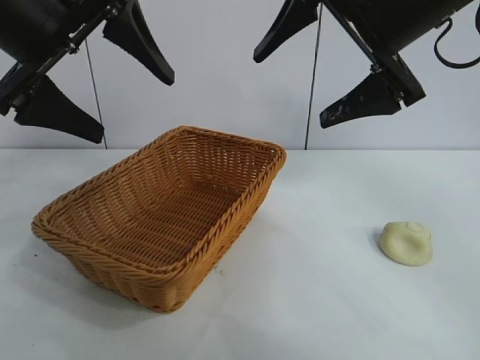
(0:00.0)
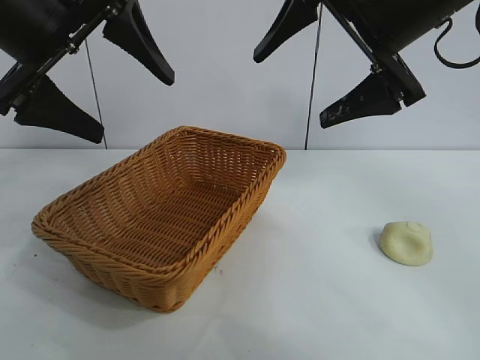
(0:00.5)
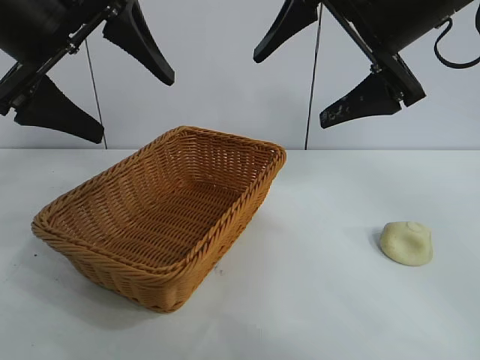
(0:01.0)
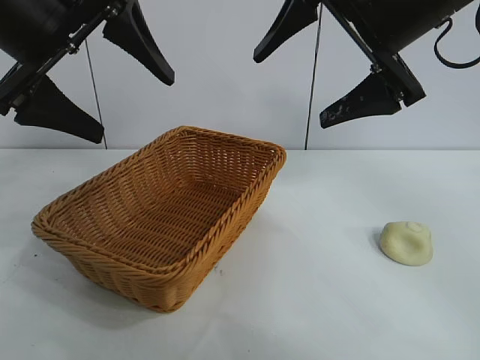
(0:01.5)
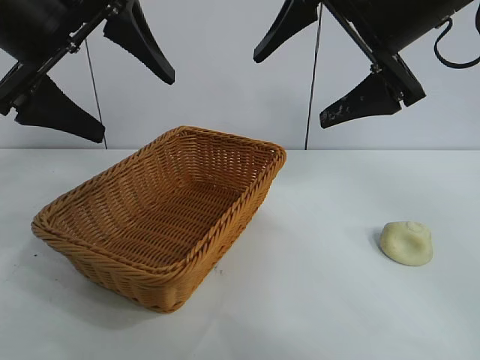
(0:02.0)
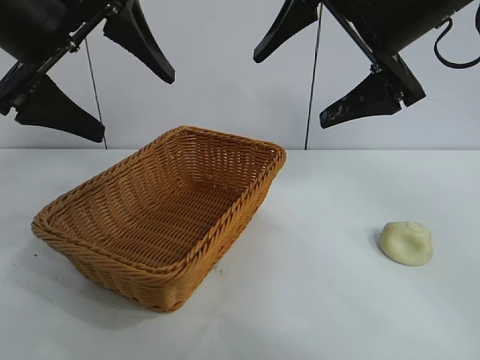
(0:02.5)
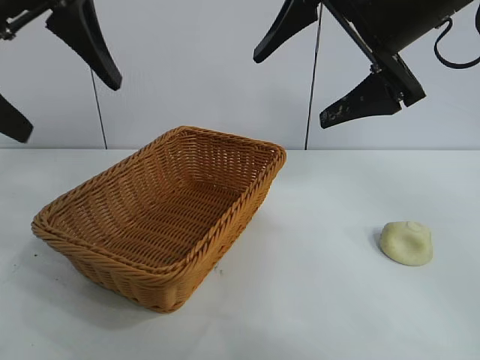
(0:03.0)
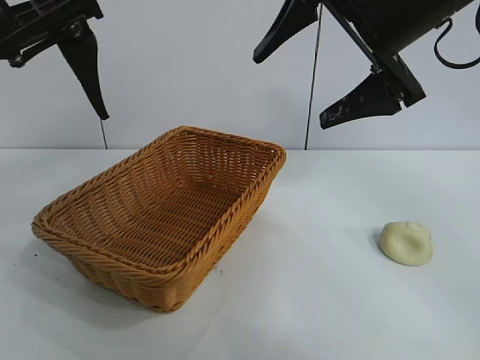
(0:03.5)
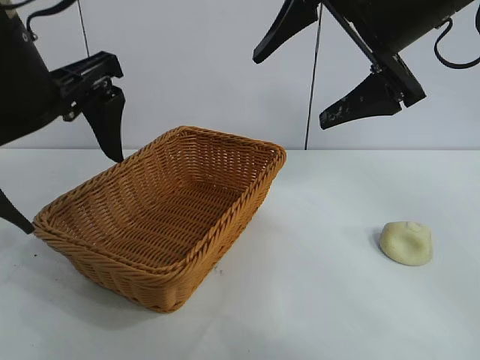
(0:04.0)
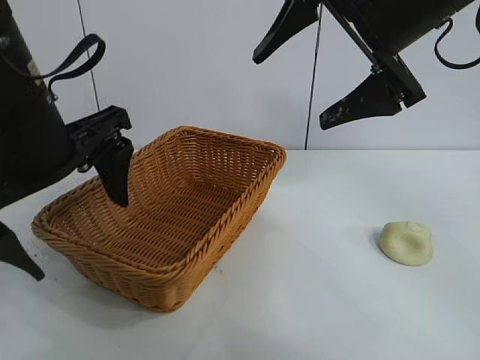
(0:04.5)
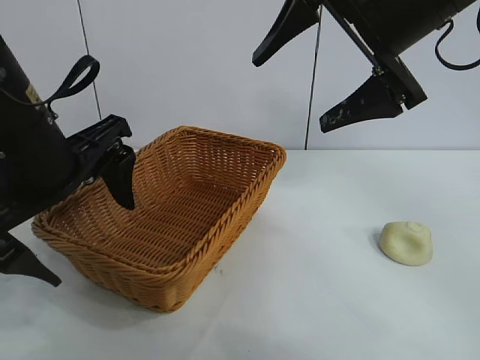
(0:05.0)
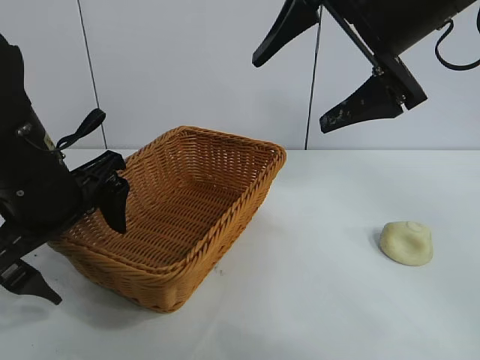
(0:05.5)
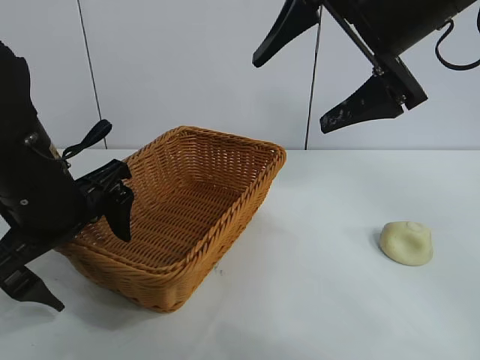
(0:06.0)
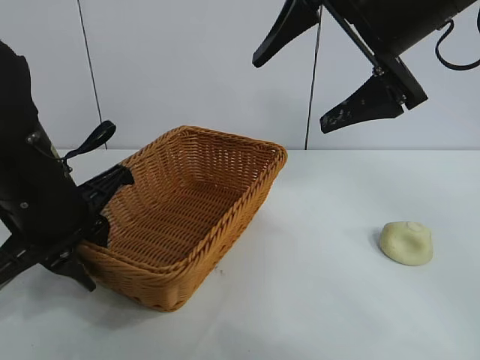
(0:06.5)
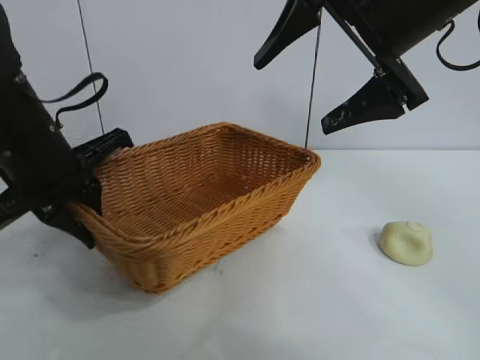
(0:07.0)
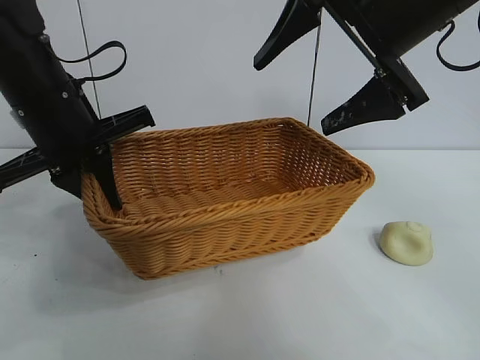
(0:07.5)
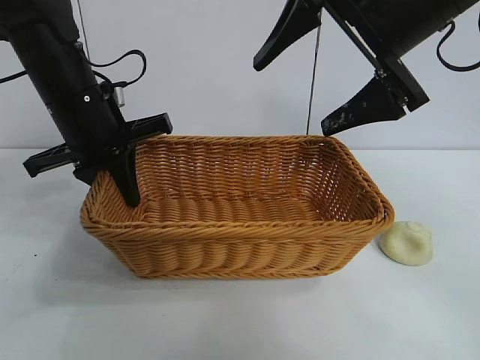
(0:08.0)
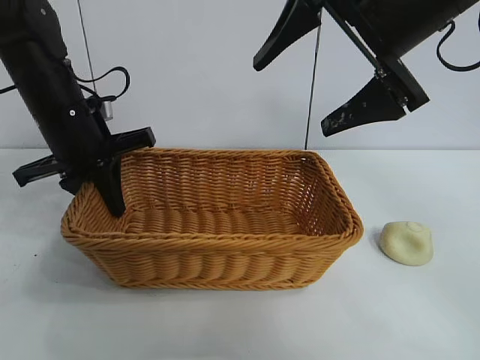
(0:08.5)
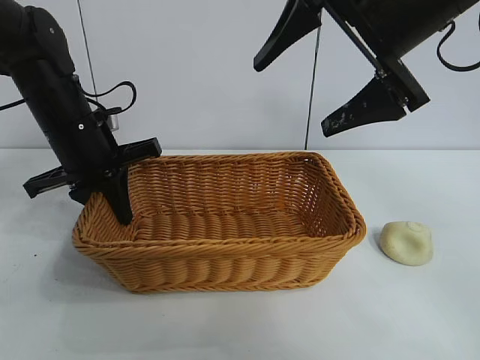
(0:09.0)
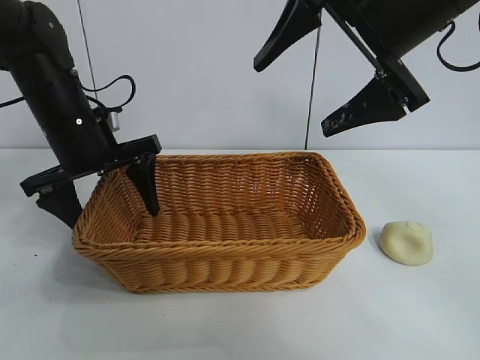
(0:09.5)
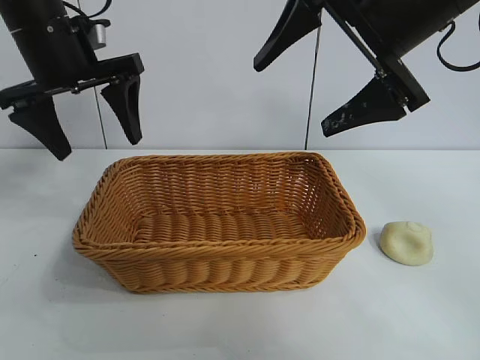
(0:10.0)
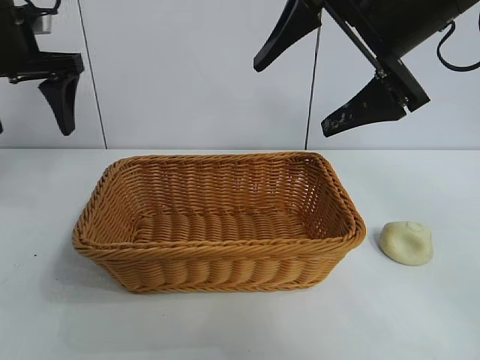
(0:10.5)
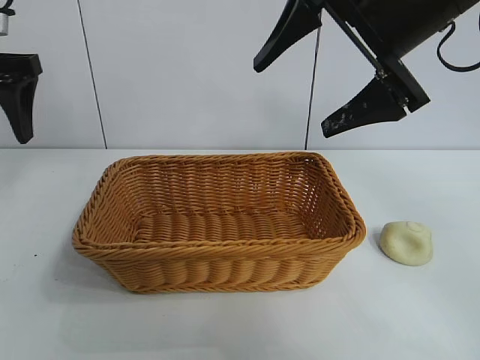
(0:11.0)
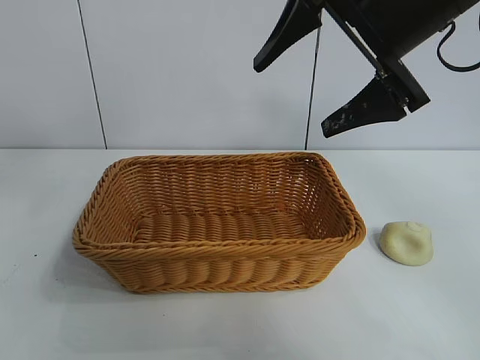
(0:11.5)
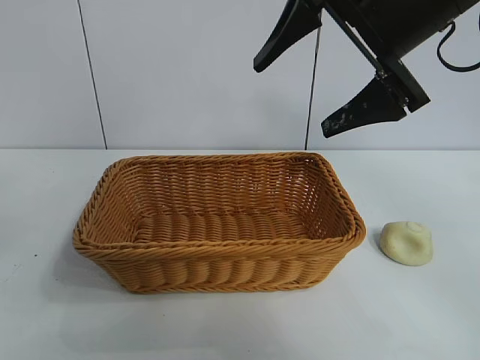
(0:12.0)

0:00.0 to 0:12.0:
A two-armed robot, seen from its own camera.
Task of the whole recording: pick up the egg yolk pastry and put it into the basket.
Step, 0:01.5 to 0:06.5: Grasp the basket with left gripper.
Step, 0:07.0 to 0:09.0: Place the basket in the center of view with left gripper.

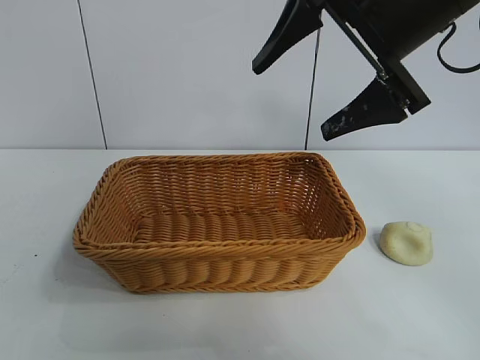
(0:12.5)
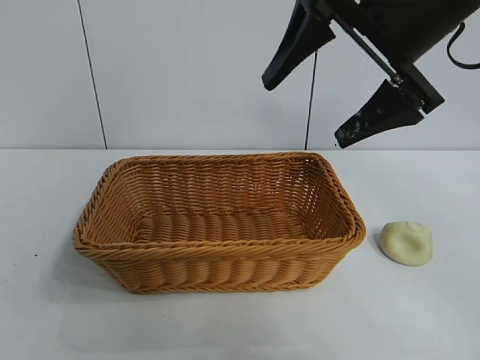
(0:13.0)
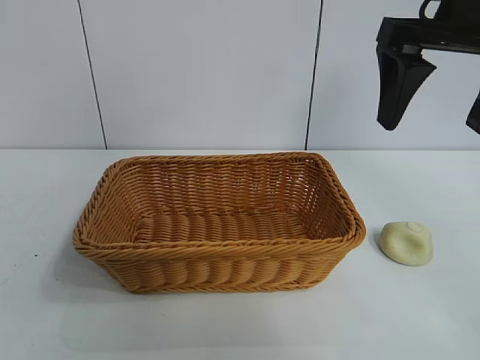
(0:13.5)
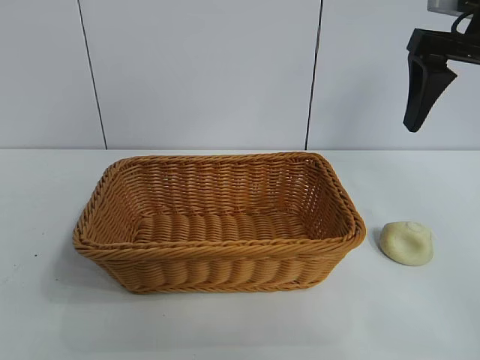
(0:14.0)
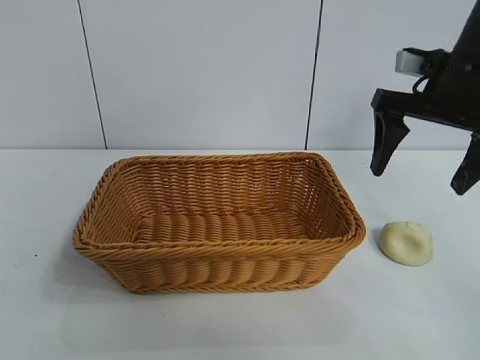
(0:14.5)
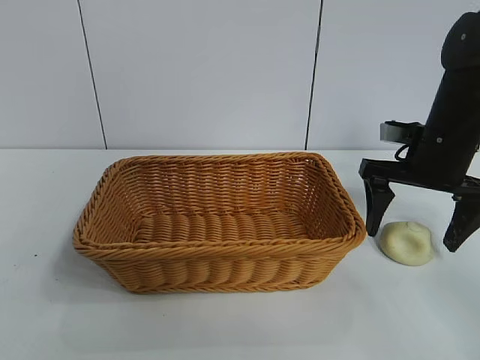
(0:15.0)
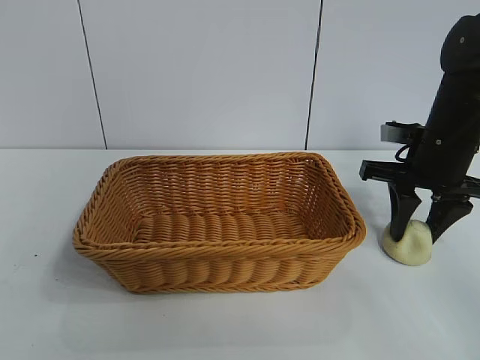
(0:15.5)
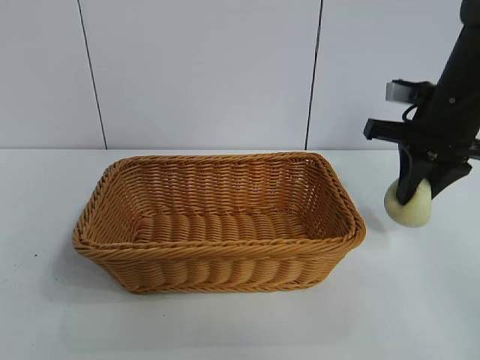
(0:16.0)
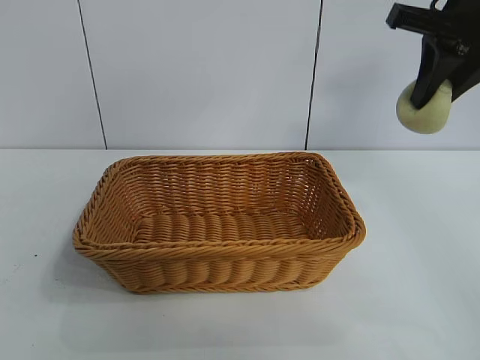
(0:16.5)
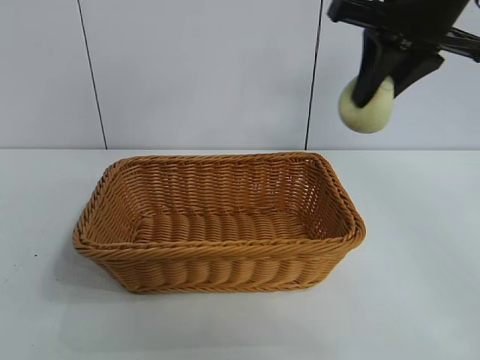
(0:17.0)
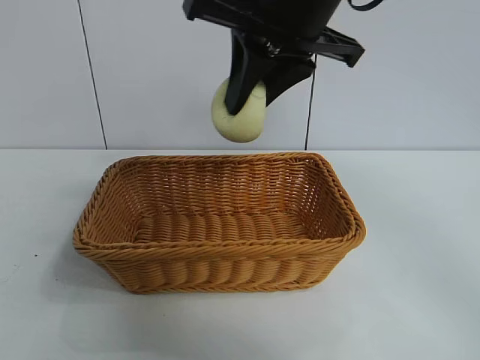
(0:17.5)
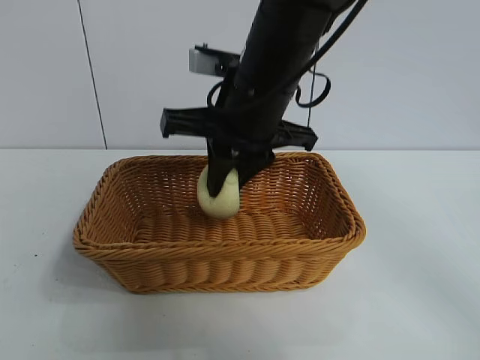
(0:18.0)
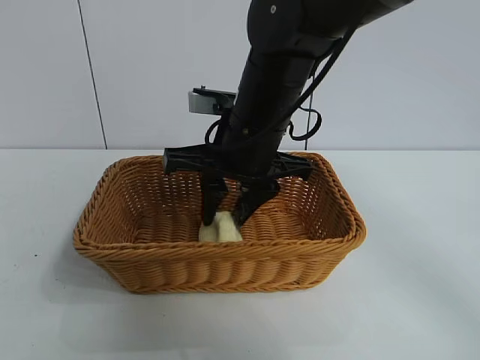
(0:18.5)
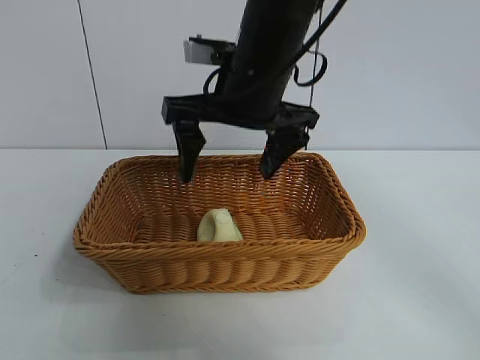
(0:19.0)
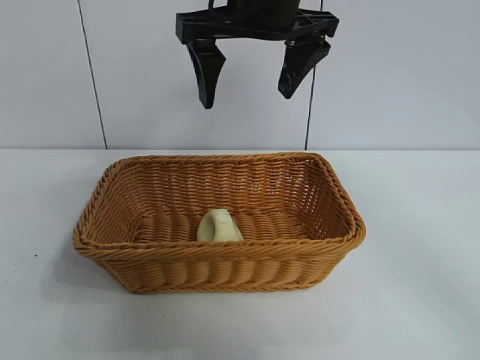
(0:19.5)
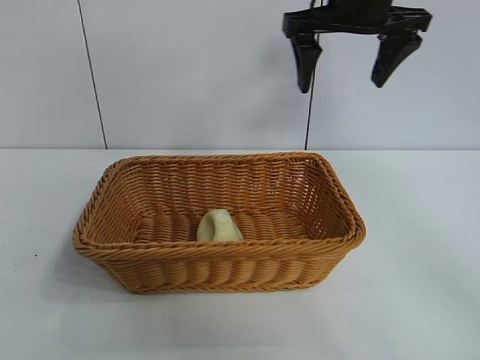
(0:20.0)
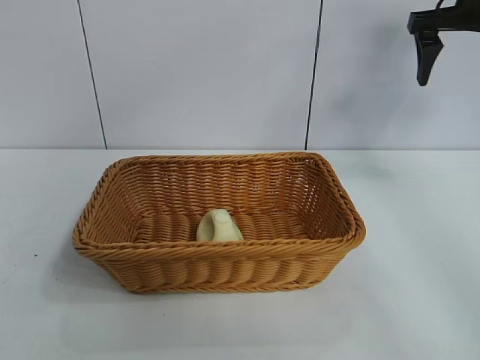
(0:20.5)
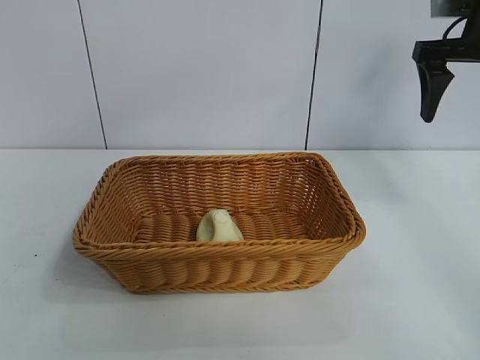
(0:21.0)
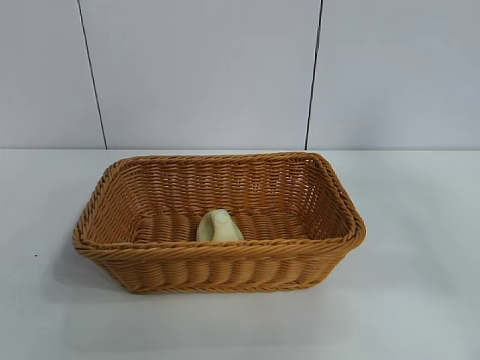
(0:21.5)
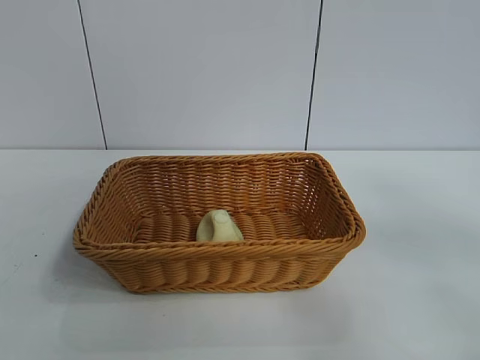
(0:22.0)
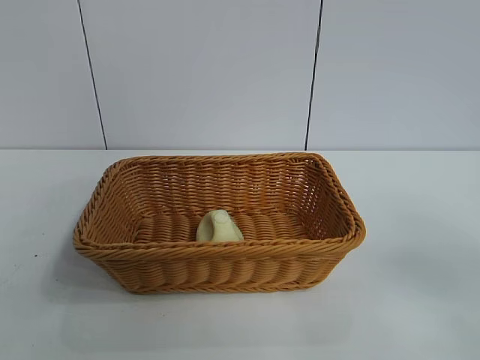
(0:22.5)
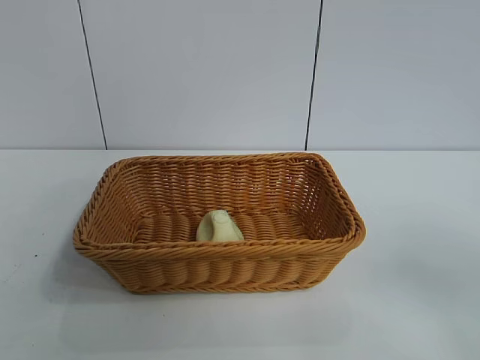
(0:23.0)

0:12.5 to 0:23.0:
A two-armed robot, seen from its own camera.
Task of the whole recording: pick up the egg yolk pastry and put it into the basket.
Step, 0:12.5 to 0:15.5: Grasp egg yolk pastry with right gripper.
Step, 0:16.0 to 0:18.5: Place the egg yolk pastry in the basket with right gripper.

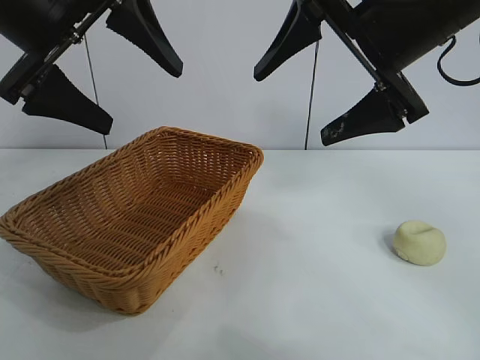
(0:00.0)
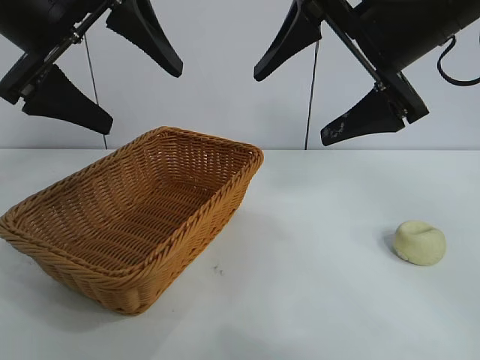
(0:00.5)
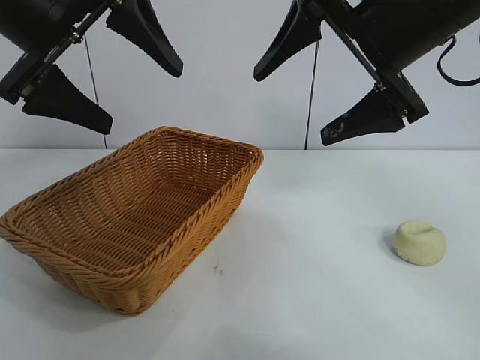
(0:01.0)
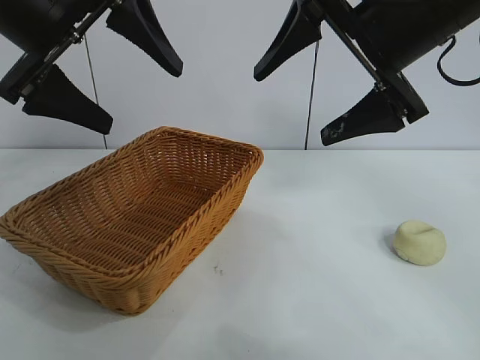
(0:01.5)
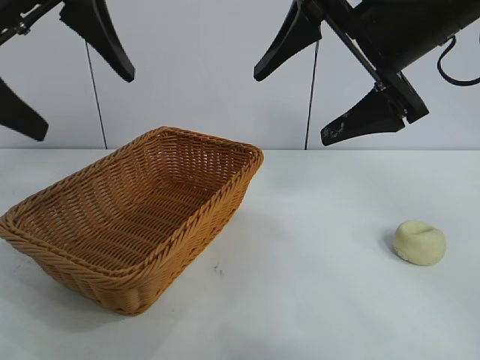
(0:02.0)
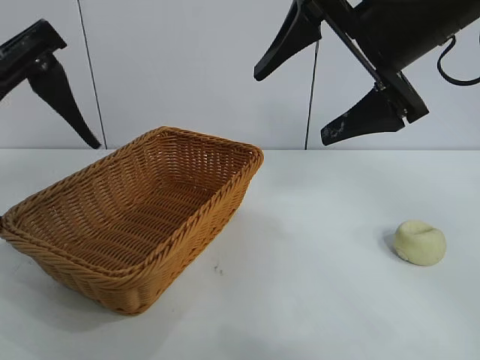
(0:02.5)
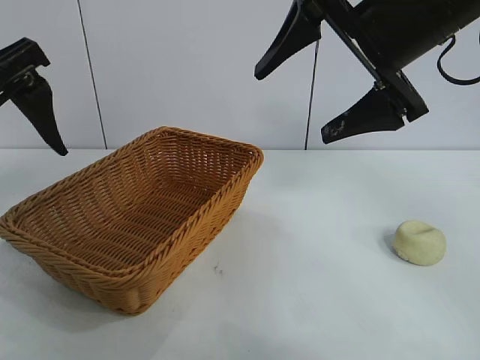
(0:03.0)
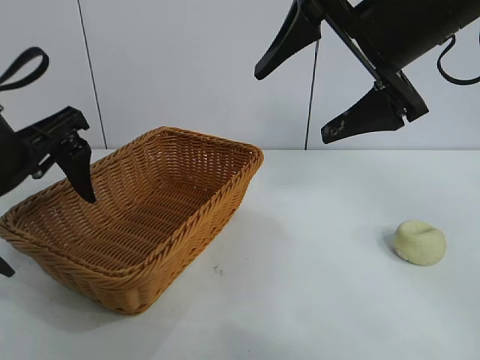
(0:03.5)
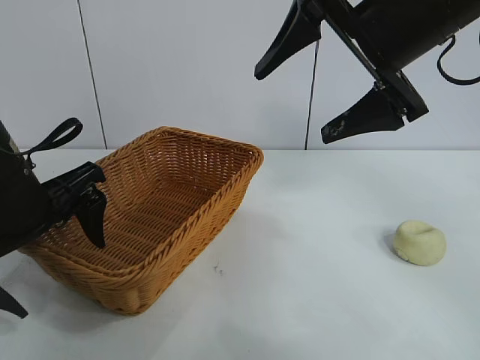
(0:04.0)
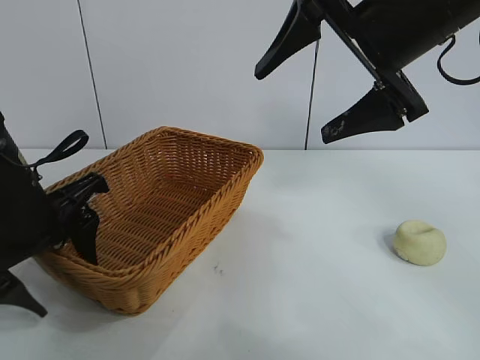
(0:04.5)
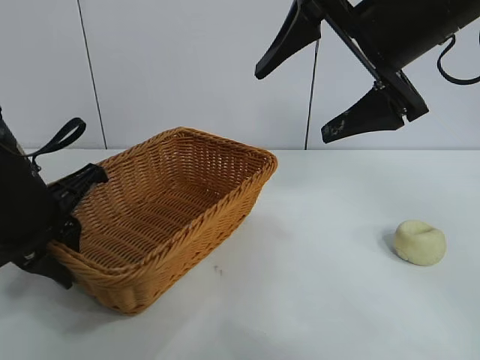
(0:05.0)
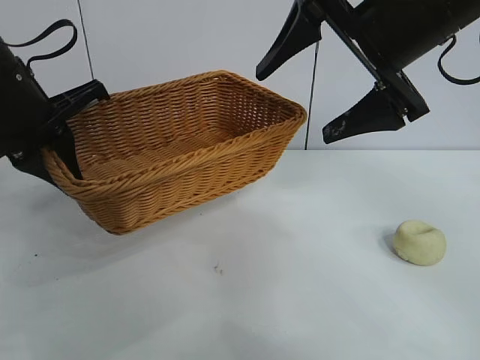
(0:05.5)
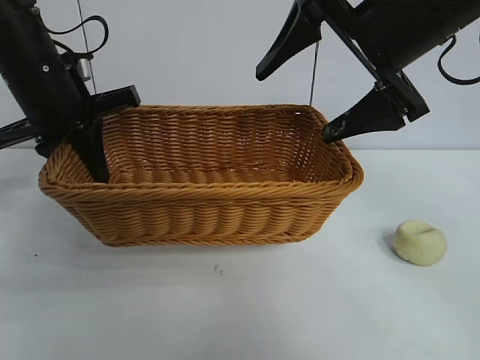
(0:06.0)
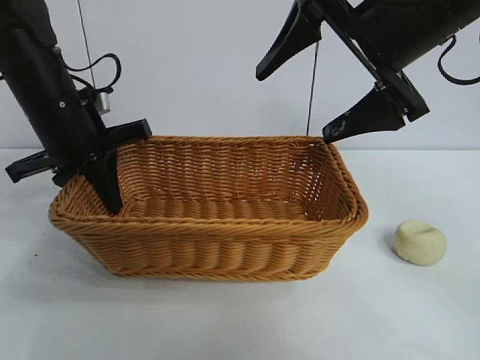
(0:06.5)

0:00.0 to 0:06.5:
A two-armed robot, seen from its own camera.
Task of the whole recording: pick up the egg yolk pastry and put it into the basket.
Step, 0:02.0 to 0:04.5: Grasp the basket with left gripper.
